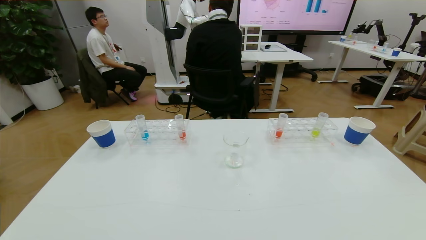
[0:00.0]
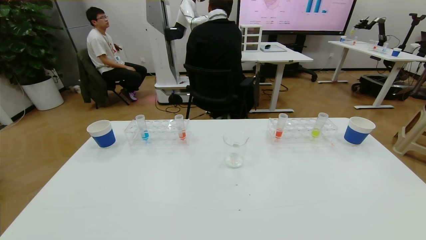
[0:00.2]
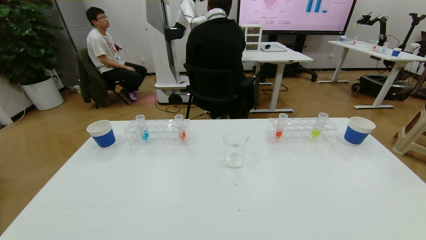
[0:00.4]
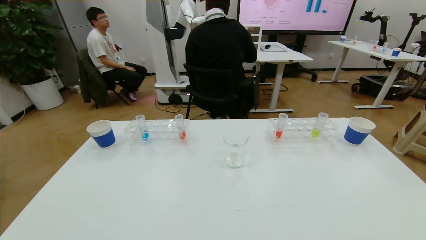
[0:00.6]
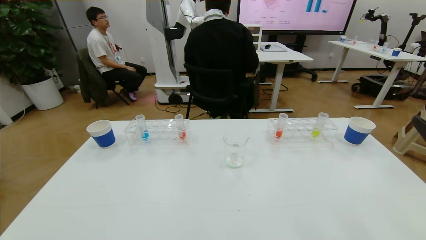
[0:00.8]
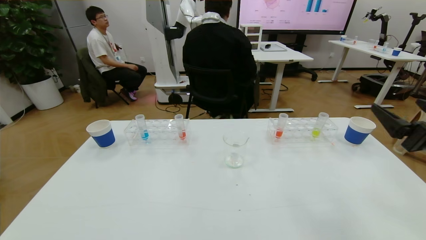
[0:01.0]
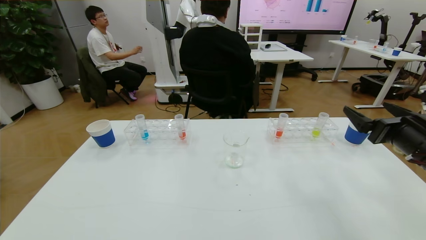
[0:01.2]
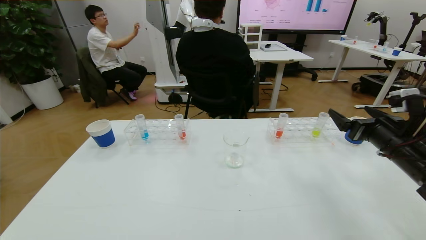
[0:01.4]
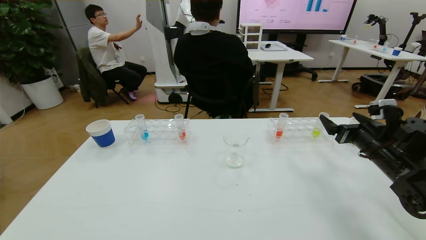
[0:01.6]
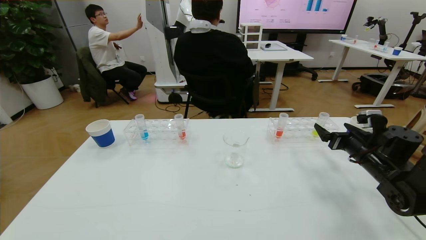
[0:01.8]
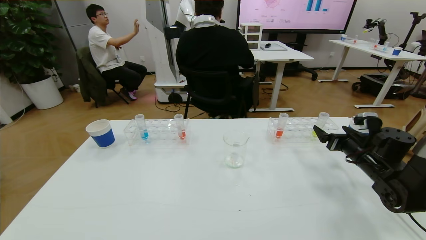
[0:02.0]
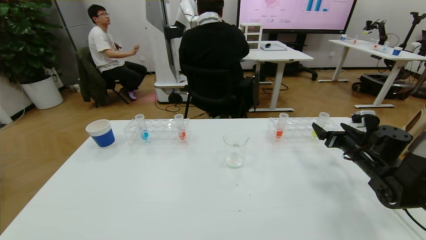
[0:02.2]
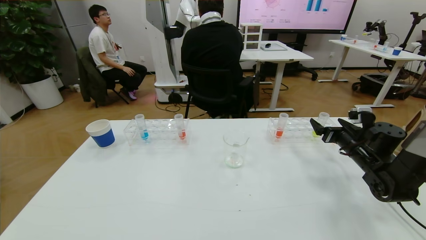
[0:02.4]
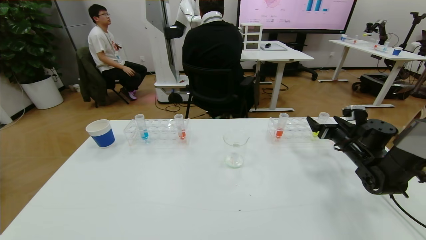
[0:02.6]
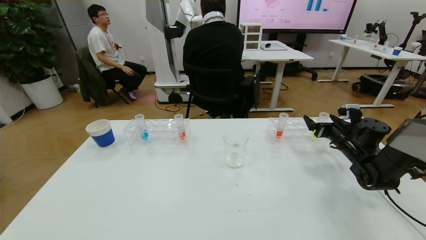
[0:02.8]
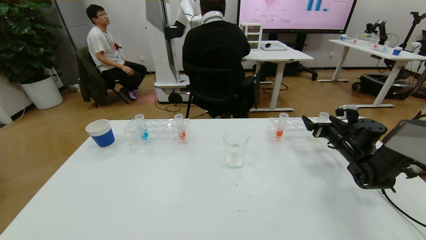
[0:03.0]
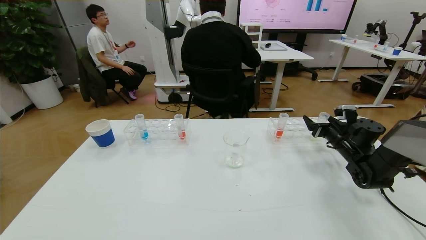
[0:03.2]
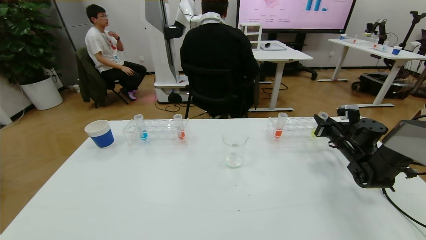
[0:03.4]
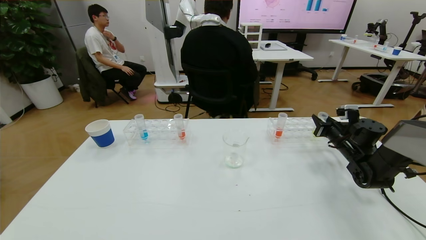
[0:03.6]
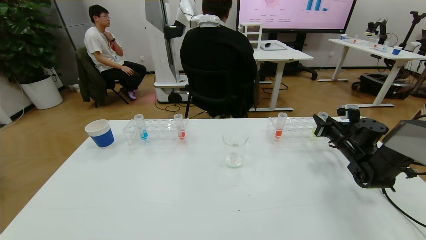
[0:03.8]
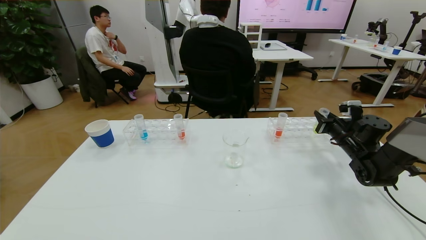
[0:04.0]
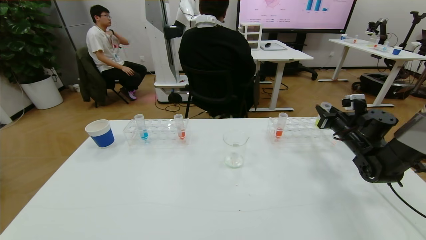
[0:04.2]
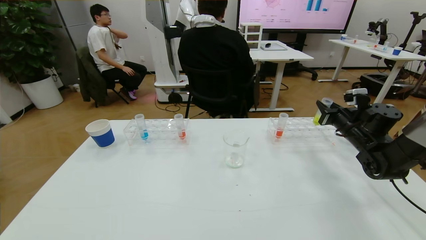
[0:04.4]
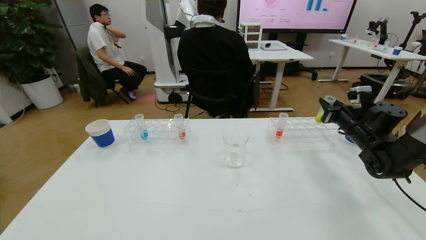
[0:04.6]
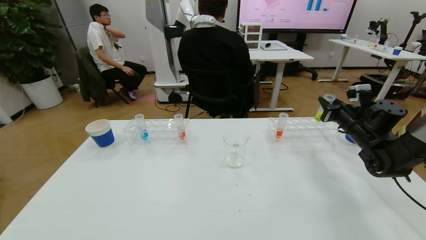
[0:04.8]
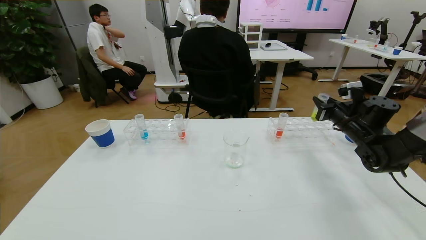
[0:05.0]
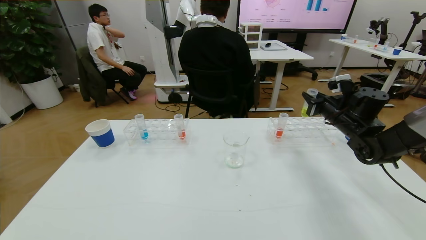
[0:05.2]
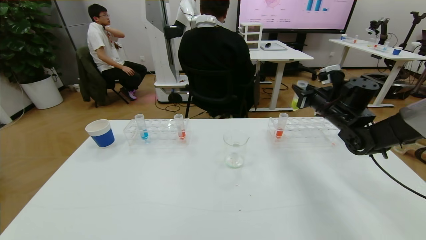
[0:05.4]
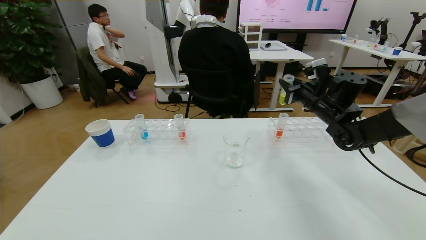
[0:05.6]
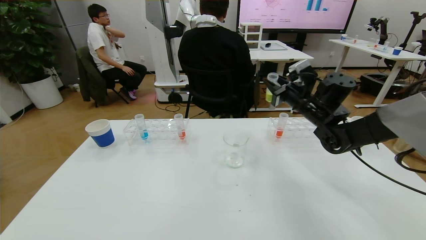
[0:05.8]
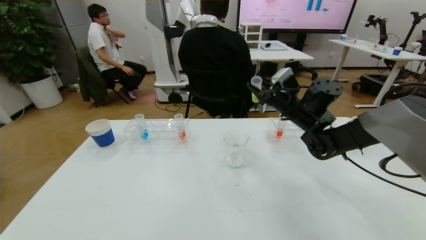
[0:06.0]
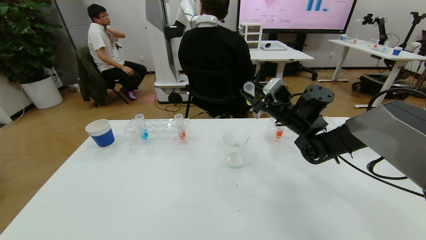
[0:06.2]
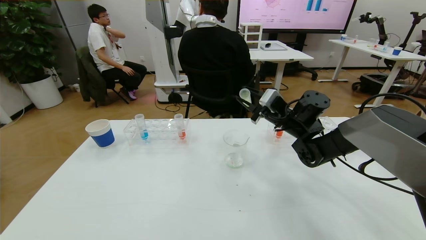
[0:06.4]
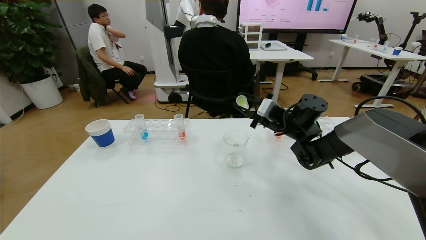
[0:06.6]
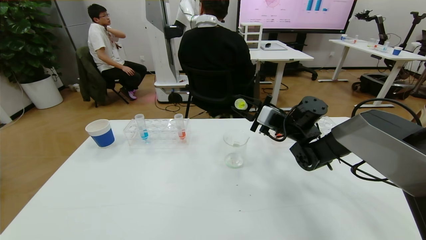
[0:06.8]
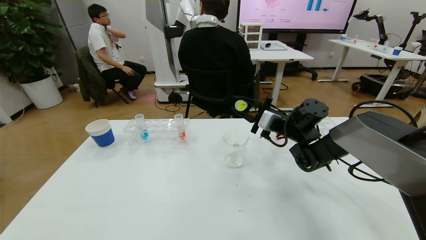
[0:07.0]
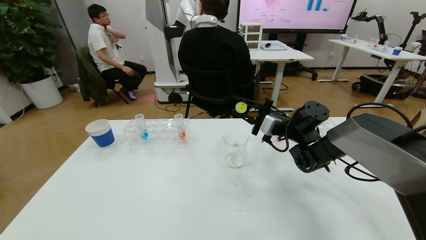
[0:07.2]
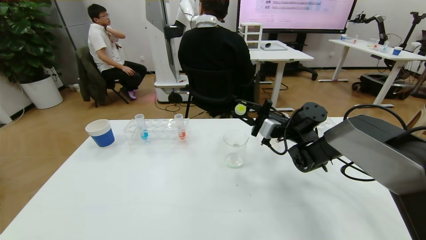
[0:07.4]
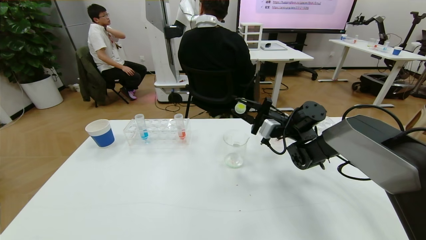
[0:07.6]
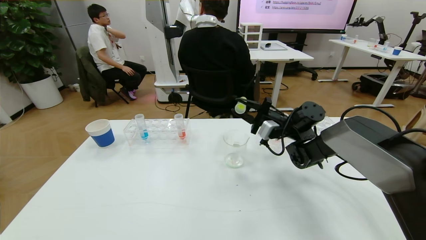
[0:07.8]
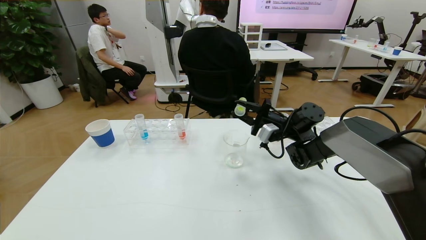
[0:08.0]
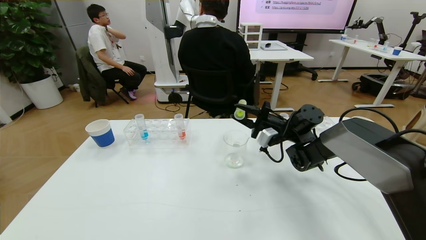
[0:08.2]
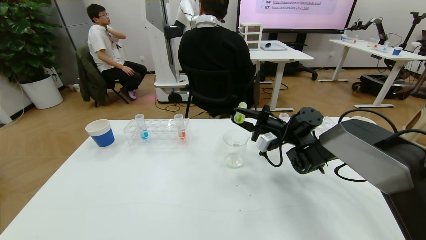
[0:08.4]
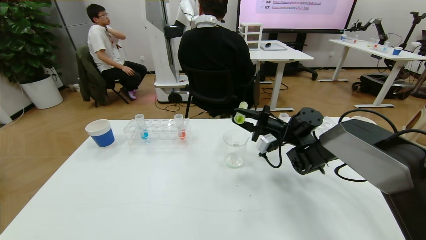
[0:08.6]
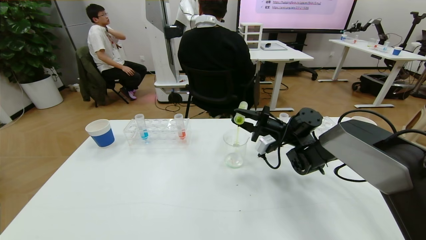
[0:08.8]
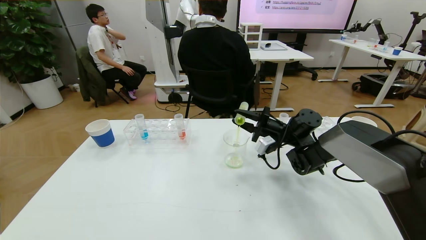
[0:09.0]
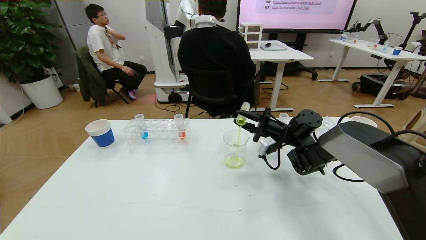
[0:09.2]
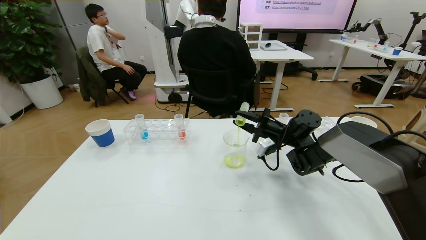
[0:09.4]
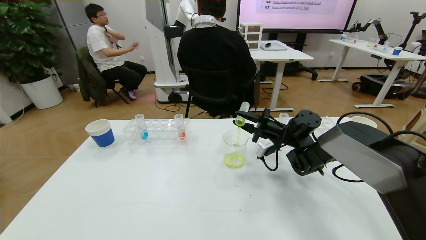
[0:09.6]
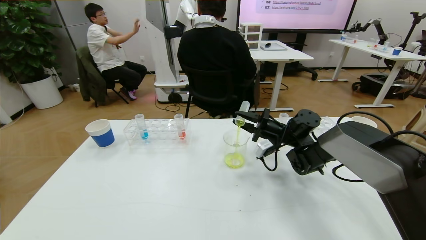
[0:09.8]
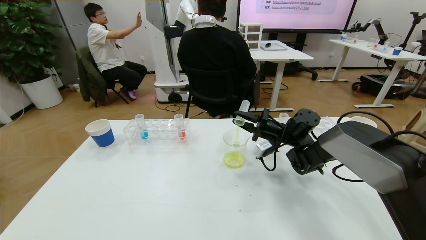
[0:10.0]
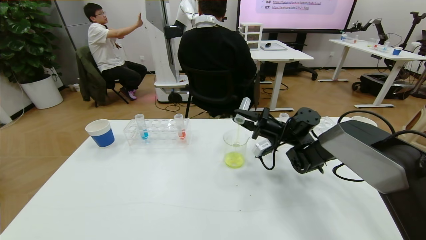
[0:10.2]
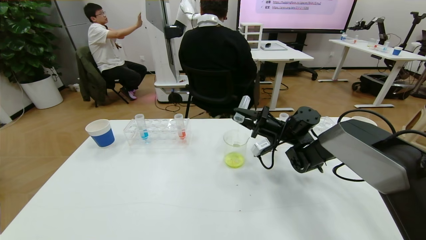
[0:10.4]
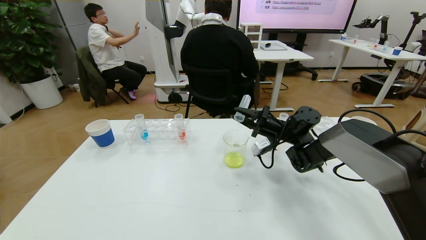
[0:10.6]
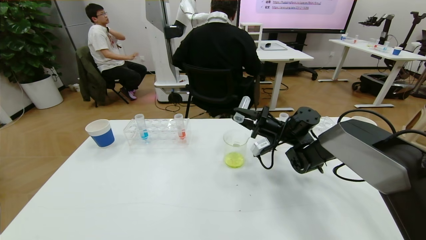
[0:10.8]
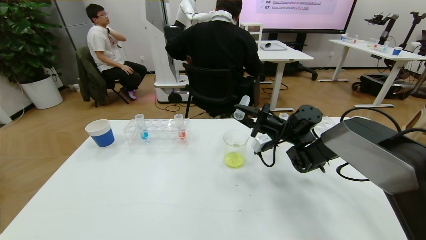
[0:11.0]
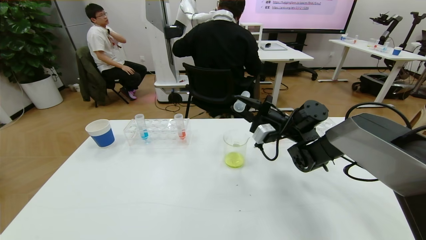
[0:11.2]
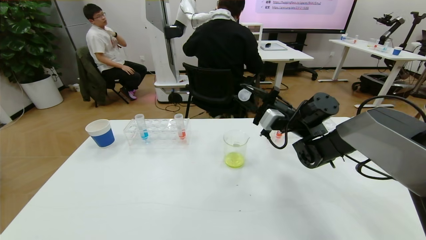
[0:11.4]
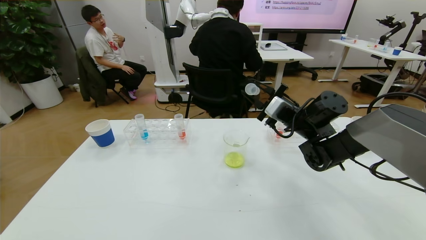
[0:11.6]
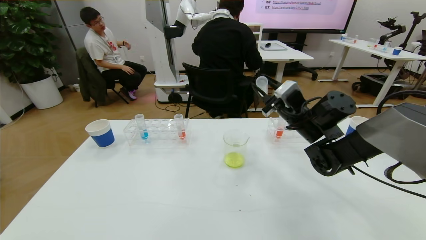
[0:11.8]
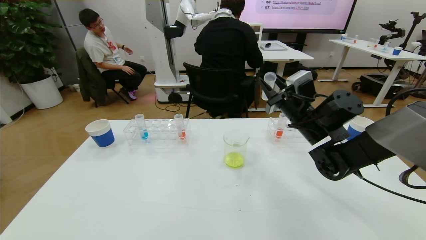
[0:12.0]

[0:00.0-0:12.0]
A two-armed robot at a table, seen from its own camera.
Task of the whole recording: pick up the test tube with yellow pigment and the test tube with blue pigment by grippers and pour them into the beaker.
0:00.0 to 0:01.6: The right gripper goes approximately 35 cm forward.
0:01.6 to 0:03.0: The right gripper goes some 10 cm forward and downward.
0:03.0 to 0:04.4: The right gripper shifts approximately 5 cm upward, and closes up.
0:04.4 to 0:06.0: The right gripper shifts roughly 20 cm to the left.
0:06.0 to 0:07.6: The right gripper travels downward by approximately 5 cm.
0:07.6 to 0:09.0: The grippers make only small movements.
0:09.0 to 0:10.4: The grippers move only a little.
0:10.4 to 0:12.0: The right gripper is displaced upward and backward by approximately 10 cm.

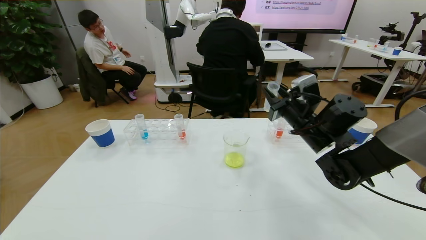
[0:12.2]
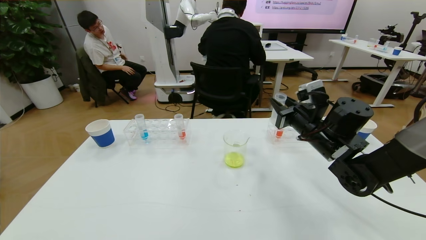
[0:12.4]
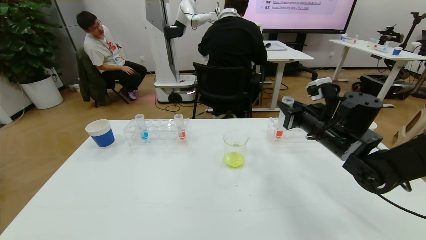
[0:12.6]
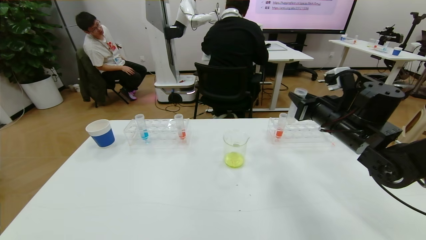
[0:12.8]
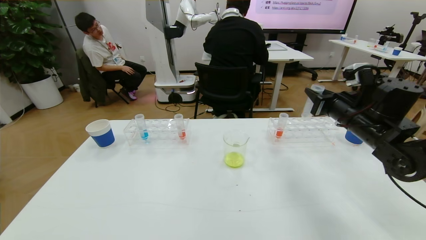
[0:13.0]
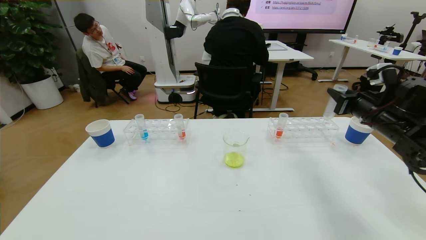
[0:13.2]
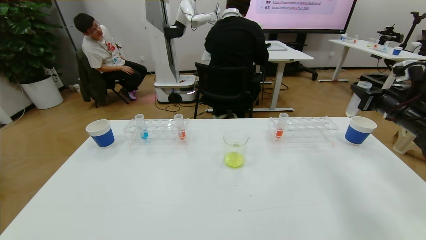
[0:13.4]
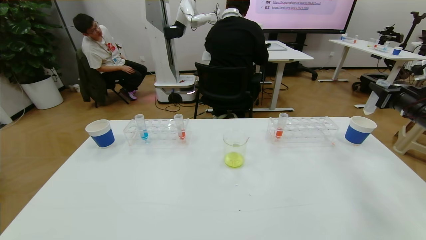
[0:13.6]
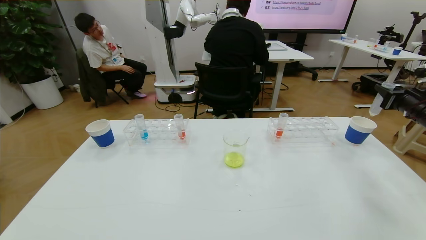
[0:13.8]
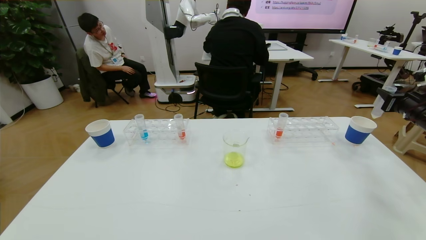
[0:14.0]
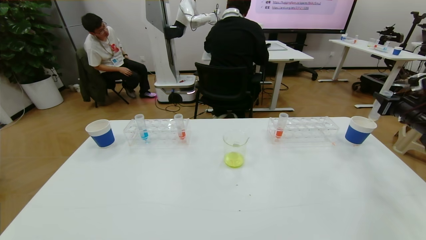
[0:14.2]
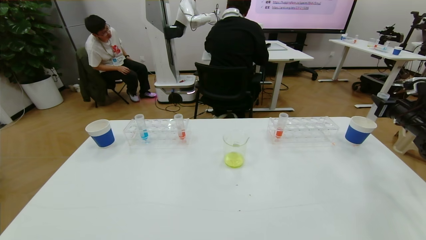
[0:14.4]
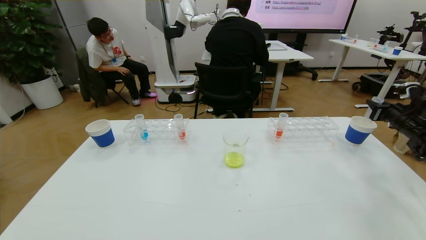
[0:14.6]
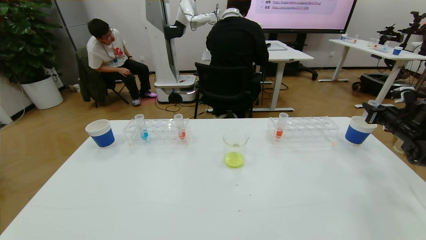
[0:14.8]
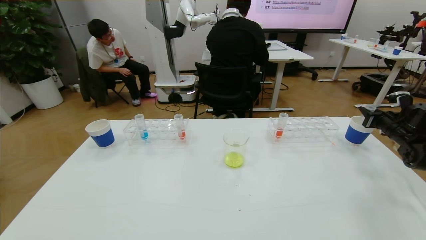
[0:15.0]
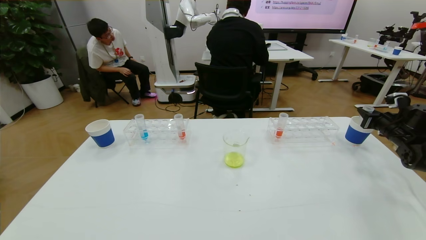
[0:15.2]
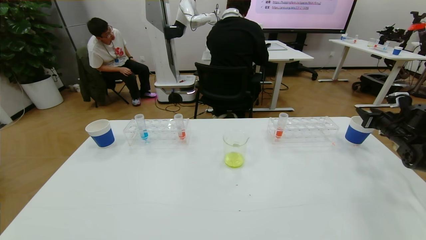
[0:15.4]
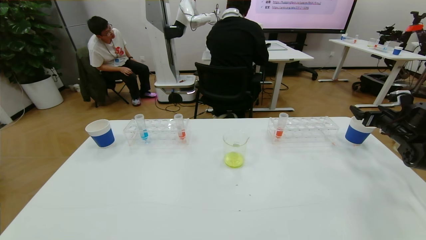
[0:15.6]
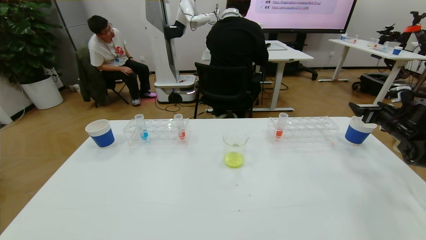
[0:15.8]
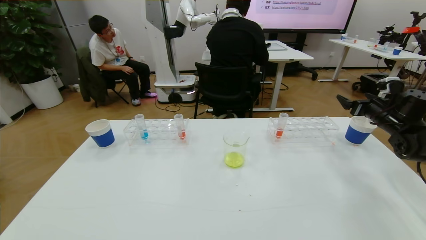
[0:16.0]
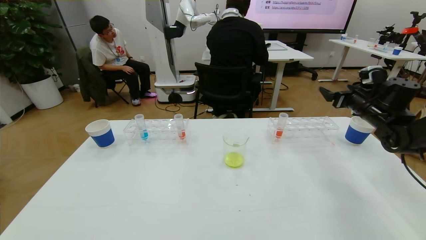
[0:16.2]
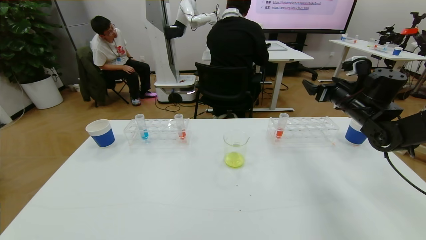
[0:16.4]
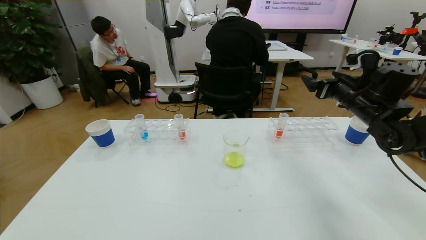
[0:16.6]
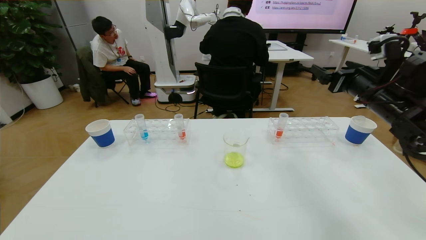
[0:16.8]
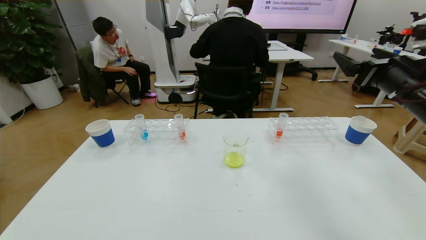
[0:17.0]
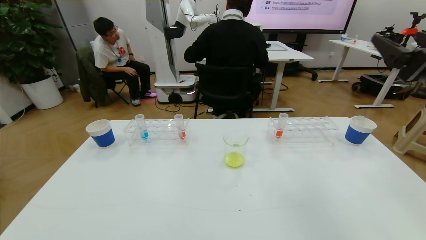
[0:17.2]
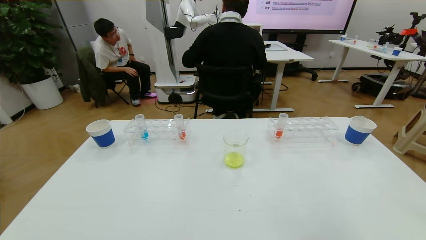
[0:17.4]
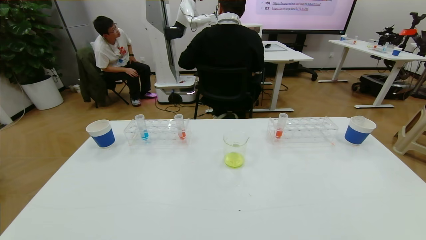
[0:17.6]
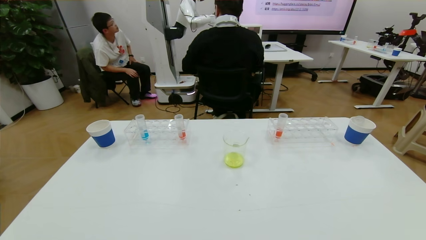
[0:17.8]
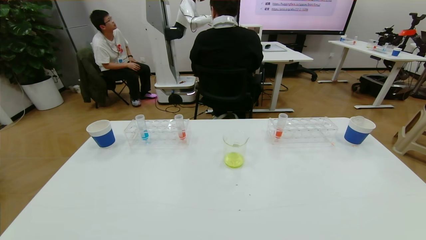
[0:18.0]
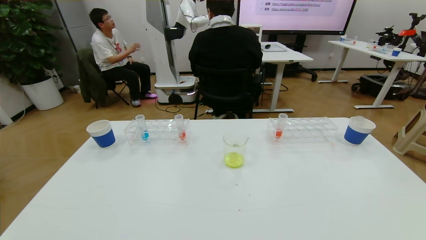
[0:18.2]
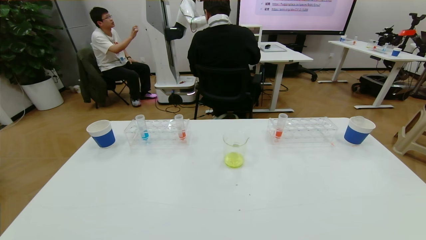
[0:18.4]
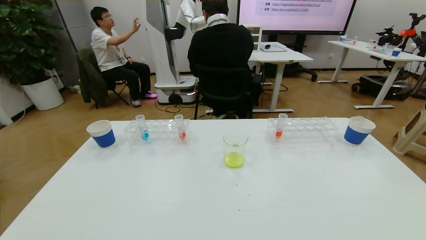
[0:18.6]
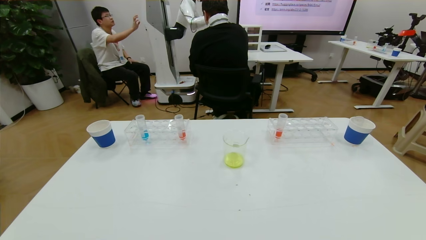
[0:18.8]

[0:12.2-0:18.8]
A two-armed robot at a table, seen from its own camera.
Task of the whole recording: pick up the test tube with yellow pigment and the test tube with blue pigment by grippers and pour them into the beaker.
0:12.2 to 0:13.8: The right gripper travels to the right by approximately 30 cm.
0:13.8 to 0:15.4: The right gripper moves downward and forward, some 10 cm, and opens.
0:15.4 to 0:17.2: The right gripper heads upward, backward and to the left, covering about 35 cm, and opens.
0:17.2 to 0:18.8: The right gripper moves backward and downward, roughly 30 cm.
